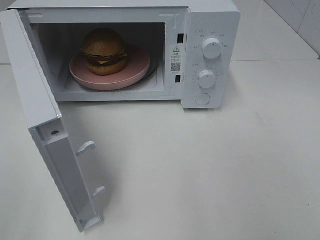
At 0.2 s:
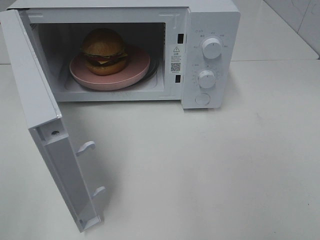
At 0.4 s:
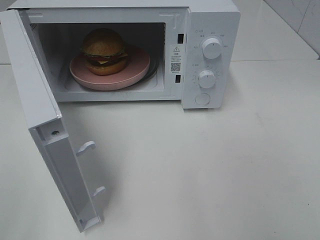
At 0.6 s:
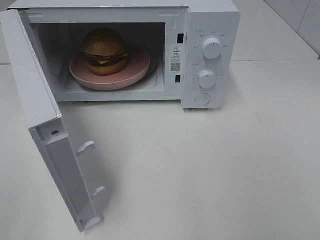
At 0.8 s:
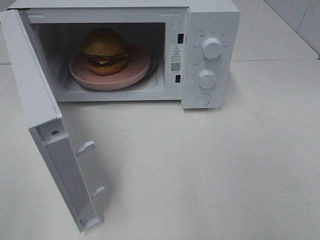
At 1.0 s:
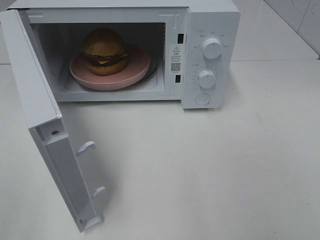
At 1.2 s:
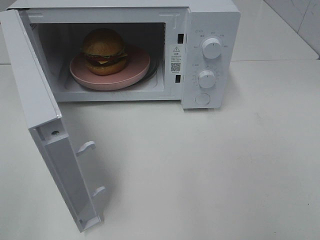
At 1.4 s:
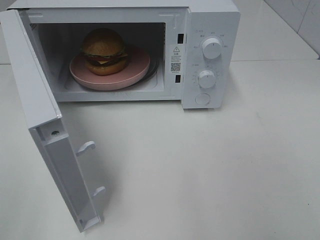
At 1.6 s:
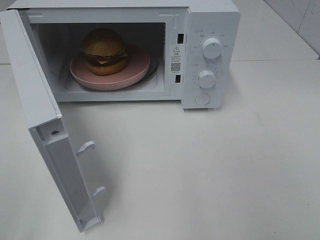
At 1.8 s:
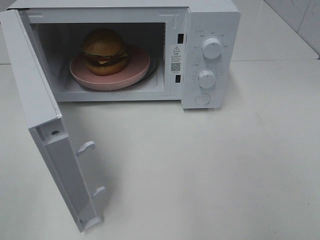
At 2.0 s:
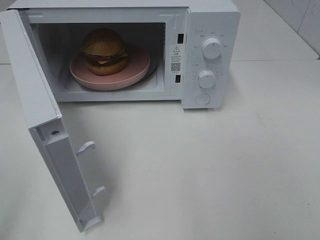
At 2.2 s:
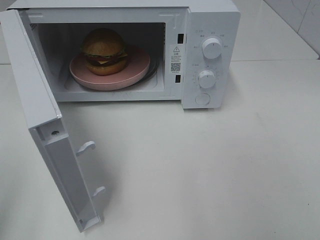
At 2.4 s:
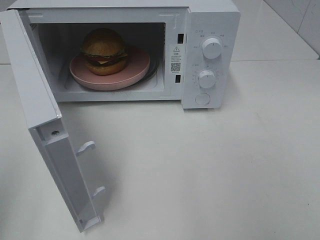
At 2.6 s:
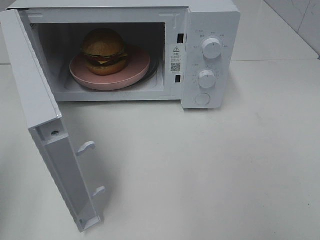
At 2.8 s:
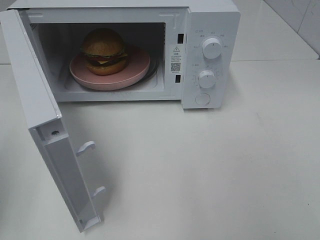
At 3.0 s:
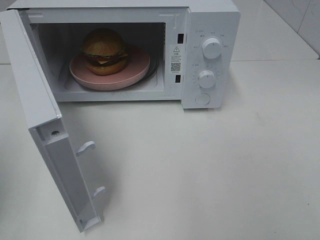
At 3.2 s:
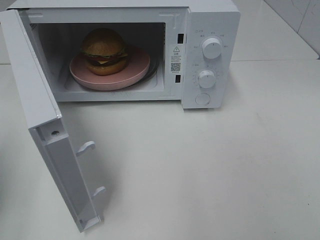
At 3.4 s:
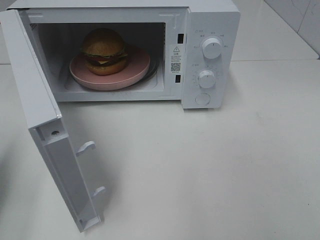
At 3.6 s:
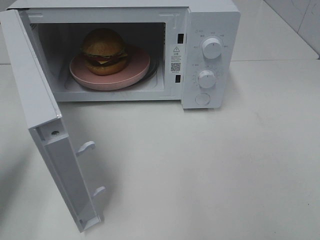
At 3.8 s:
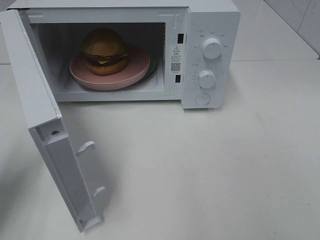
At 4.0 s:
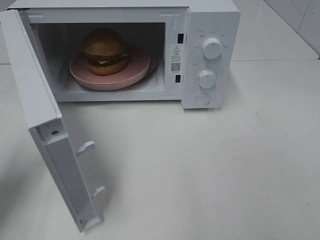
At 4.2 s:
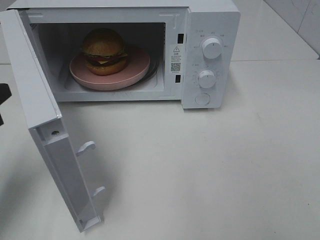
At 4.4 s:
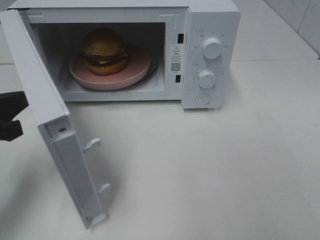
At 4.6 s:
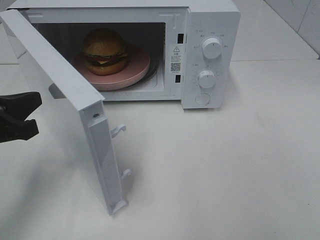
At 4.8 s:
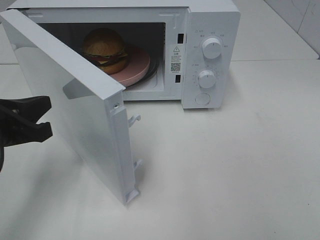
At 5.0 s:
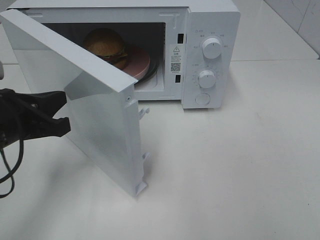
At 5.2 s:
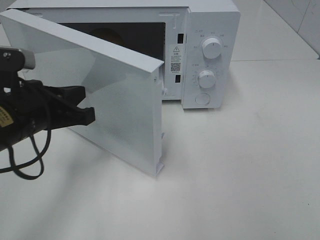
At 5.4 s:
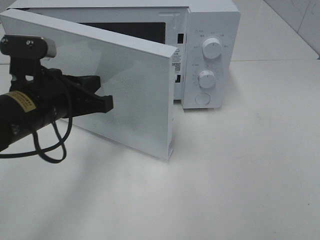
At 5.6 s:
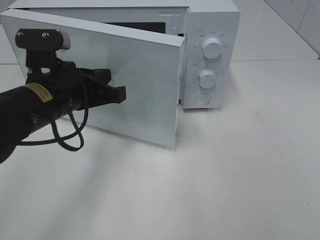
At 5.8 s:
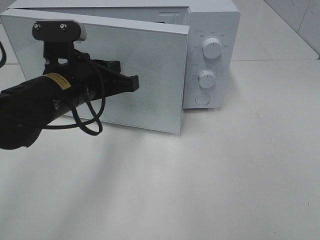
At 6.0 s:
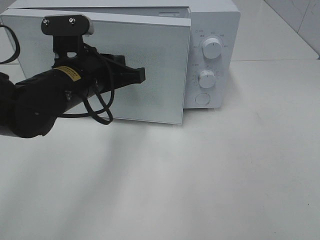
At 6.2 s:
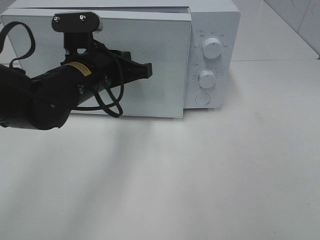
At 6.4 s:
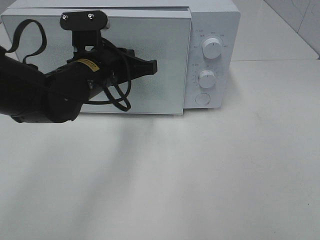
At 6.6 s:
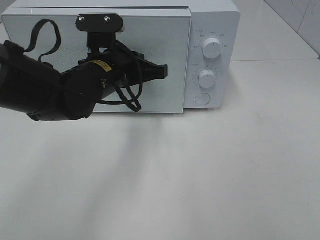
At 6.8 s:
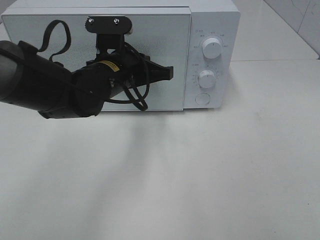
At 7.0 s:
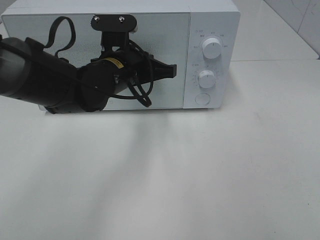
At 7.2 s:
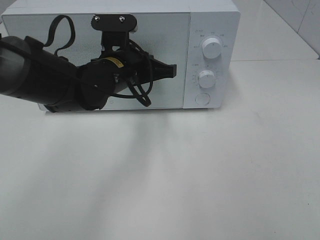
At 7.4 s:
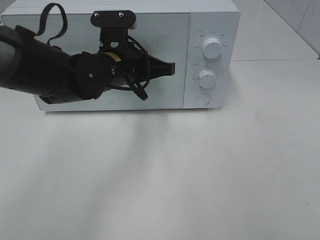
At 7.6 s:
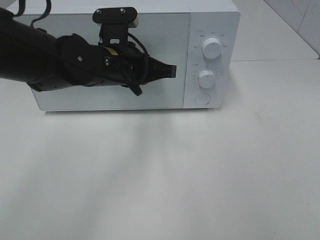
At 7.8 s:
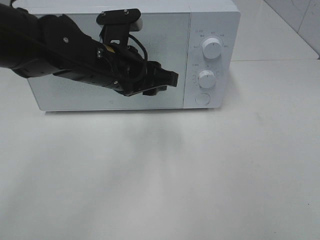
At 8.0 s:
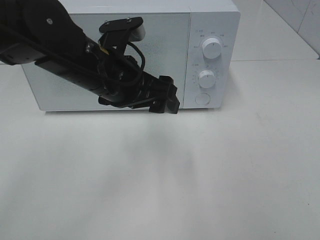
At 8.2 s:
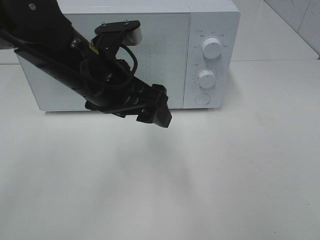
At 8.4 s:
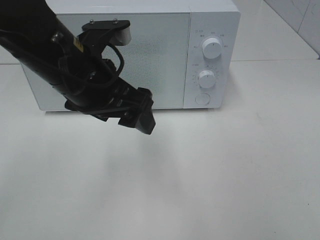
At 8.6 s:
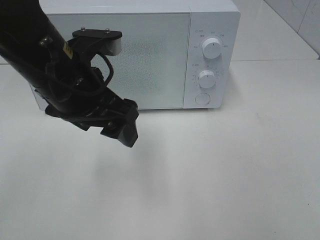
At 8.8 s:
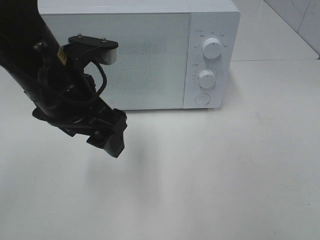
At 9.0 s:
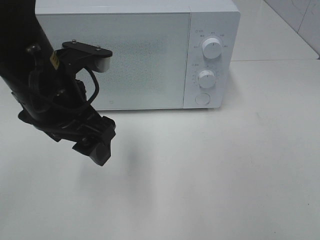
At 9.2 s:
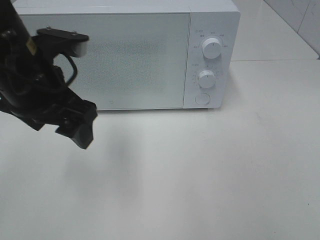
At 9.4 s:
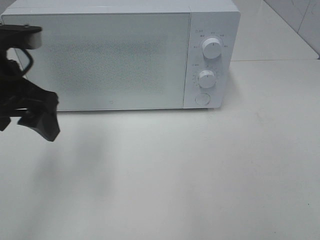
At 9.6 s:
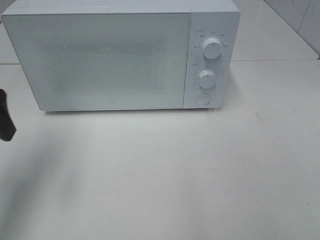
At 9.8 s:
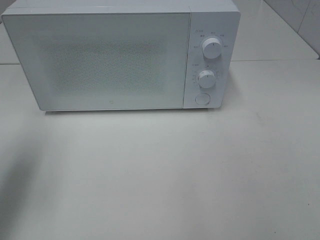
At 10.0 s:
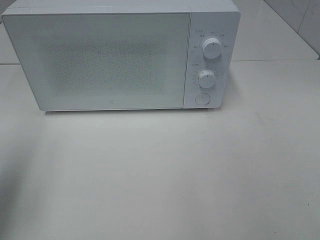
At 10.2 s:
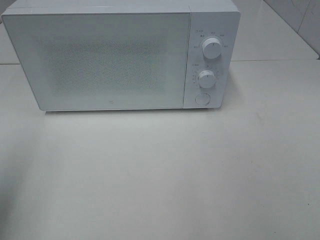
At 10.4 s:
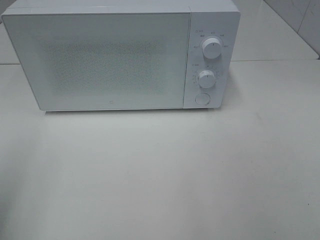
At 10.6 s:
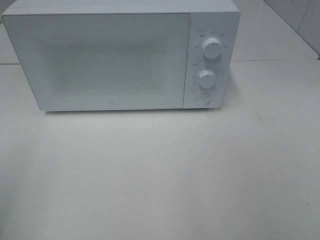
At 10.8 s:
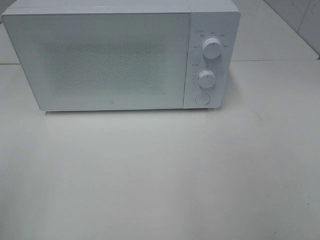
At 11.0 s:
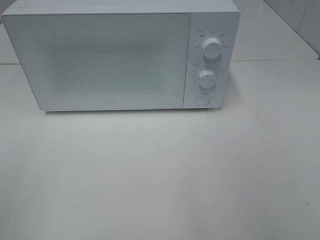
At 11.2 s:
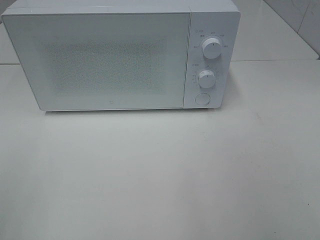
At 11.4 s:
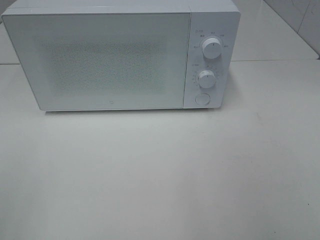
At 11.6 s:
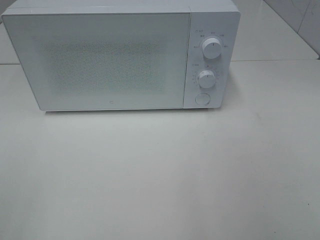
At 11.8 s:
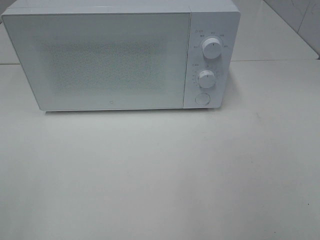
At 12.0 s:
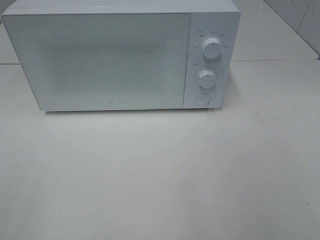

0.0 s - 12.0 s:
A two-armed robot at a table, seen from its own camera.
Task of the whole recording: Heat the burger.
Step, 0.0 s - 7.4 s: Left hand: close the microwave door.
3.0 s - 4.4 s: The left gripper heads to the right and downward, covering roughly 10 cm.
4.4 s - 6.0 s: The left gripper heads to the right and forward, covering some 20 cm.
6.0 s - 7.6 s: The left gripper changes place by approximately 5 cm.
7.6 s - 9.0 s: The left gripper goes approximately 10 cm backward and to the left, and opens.
9.0 s - 10.4 s: The left gripper goes approximately 25 cm to the left and backward.

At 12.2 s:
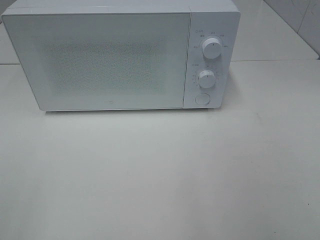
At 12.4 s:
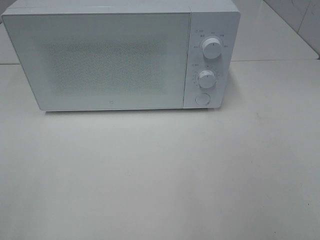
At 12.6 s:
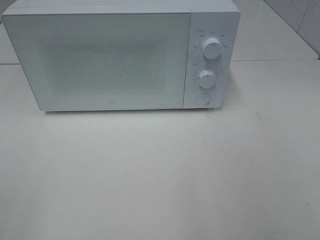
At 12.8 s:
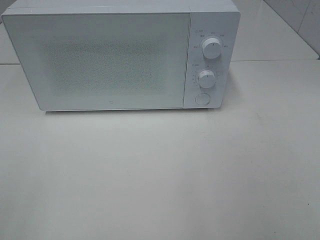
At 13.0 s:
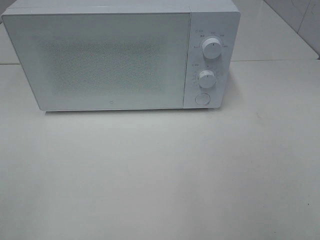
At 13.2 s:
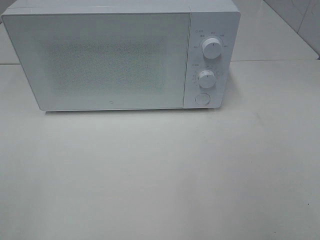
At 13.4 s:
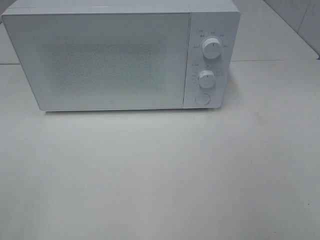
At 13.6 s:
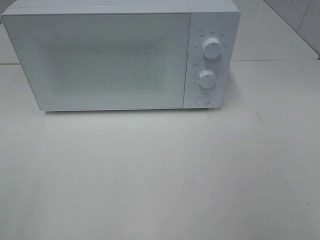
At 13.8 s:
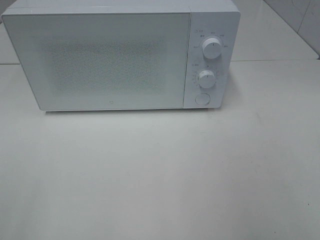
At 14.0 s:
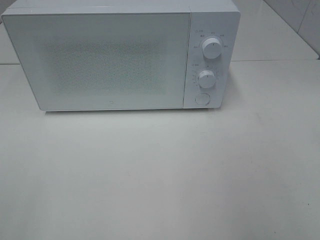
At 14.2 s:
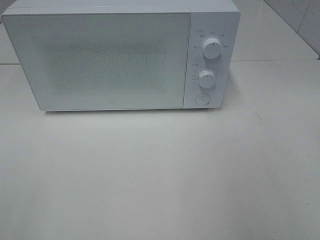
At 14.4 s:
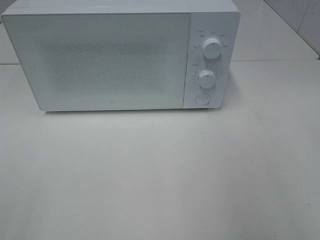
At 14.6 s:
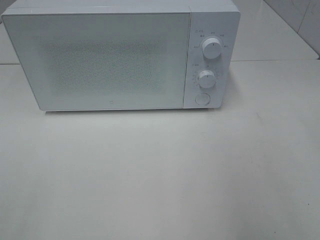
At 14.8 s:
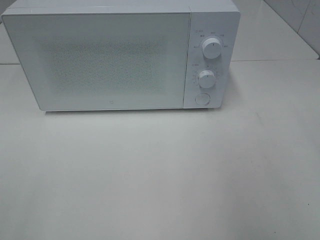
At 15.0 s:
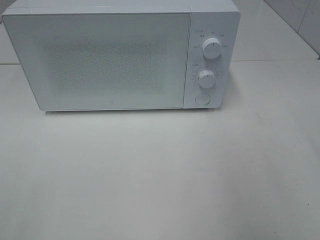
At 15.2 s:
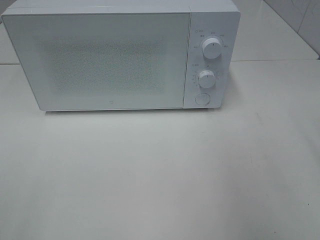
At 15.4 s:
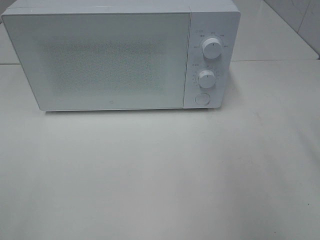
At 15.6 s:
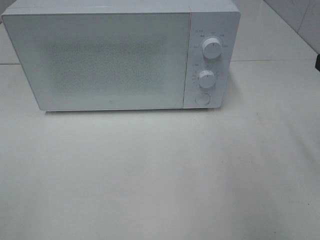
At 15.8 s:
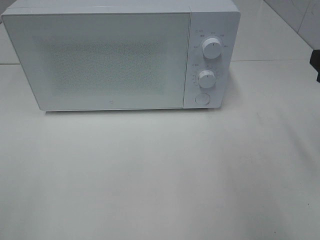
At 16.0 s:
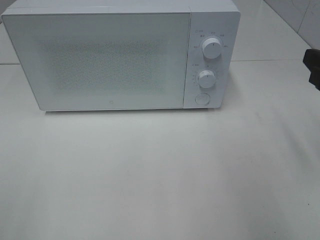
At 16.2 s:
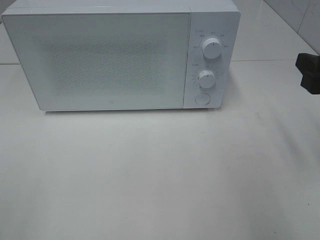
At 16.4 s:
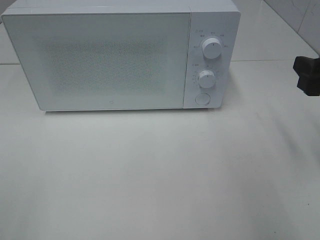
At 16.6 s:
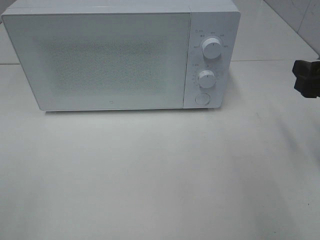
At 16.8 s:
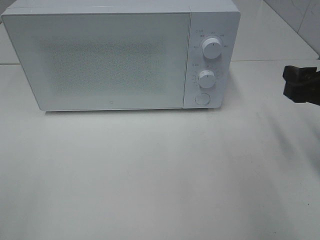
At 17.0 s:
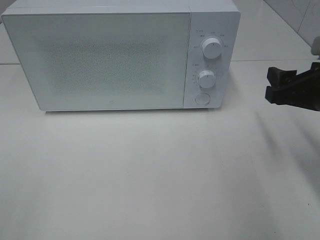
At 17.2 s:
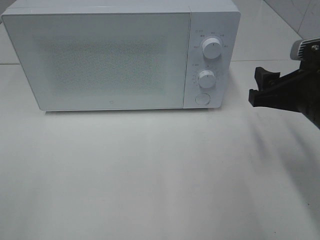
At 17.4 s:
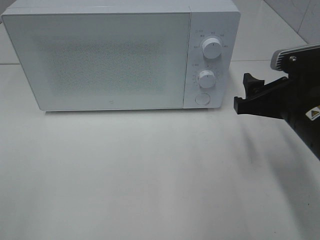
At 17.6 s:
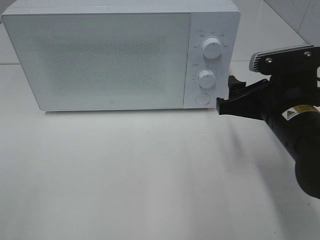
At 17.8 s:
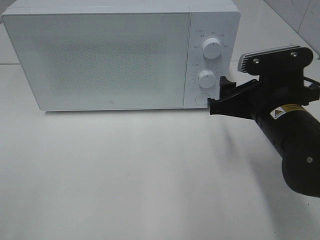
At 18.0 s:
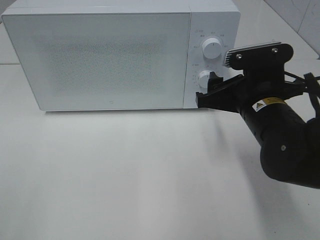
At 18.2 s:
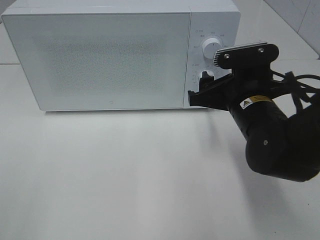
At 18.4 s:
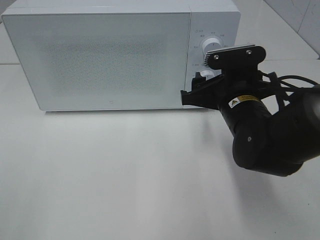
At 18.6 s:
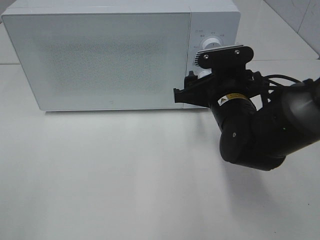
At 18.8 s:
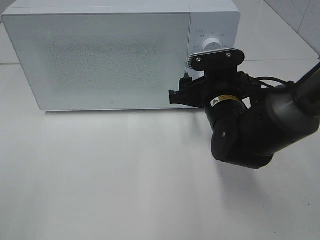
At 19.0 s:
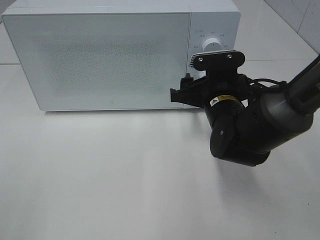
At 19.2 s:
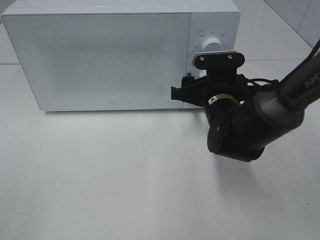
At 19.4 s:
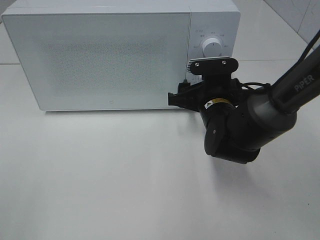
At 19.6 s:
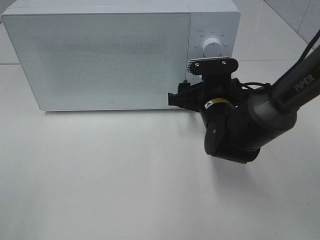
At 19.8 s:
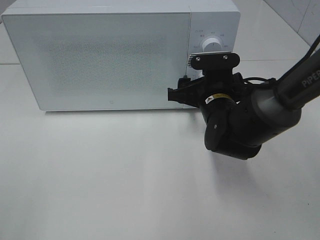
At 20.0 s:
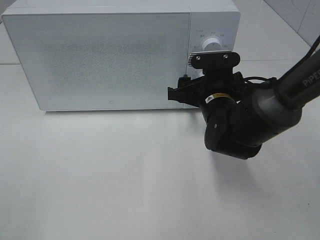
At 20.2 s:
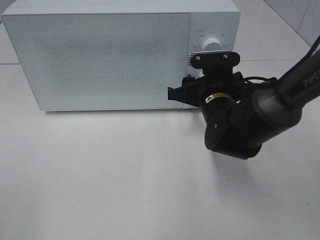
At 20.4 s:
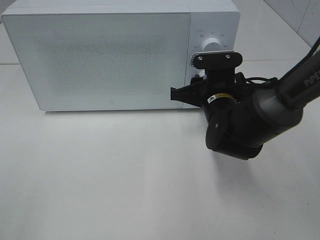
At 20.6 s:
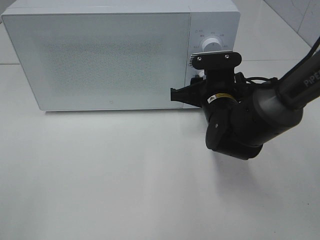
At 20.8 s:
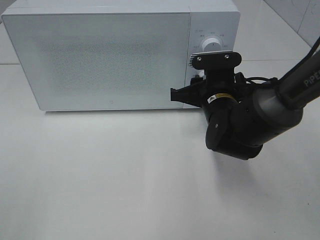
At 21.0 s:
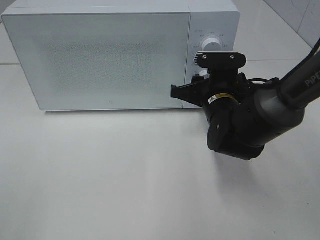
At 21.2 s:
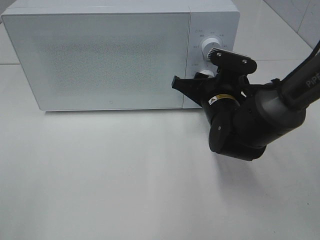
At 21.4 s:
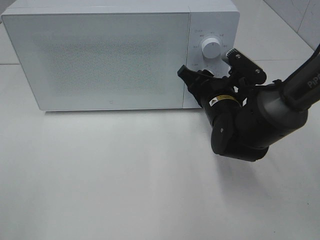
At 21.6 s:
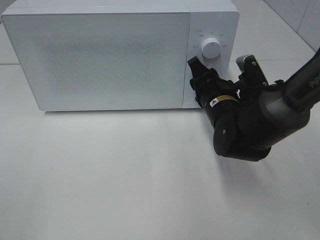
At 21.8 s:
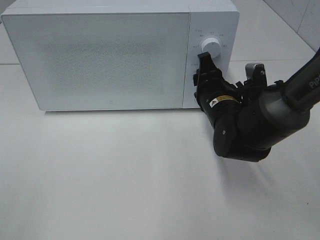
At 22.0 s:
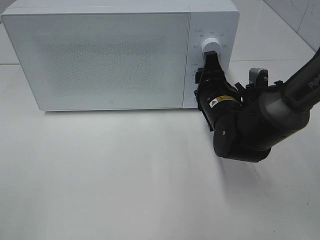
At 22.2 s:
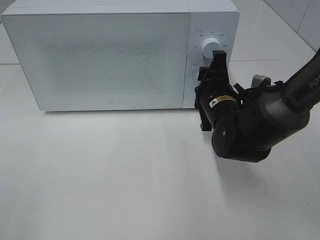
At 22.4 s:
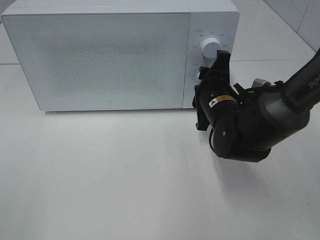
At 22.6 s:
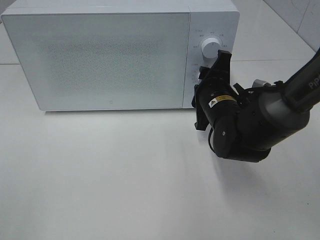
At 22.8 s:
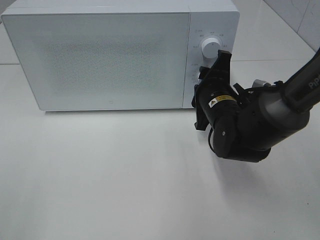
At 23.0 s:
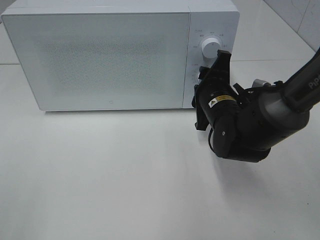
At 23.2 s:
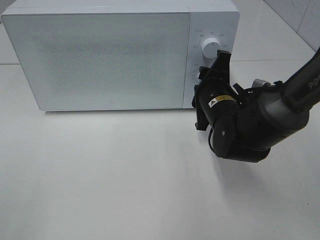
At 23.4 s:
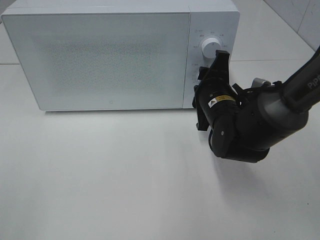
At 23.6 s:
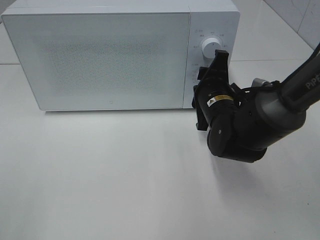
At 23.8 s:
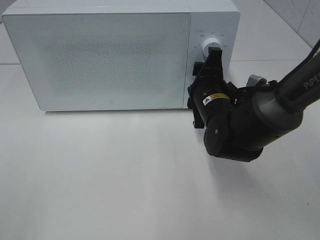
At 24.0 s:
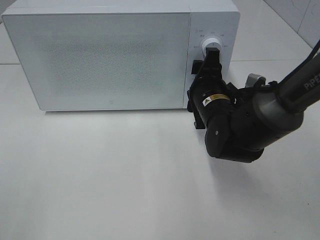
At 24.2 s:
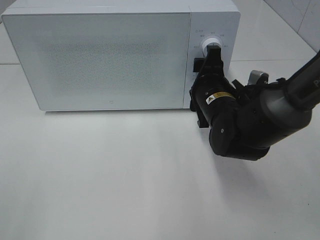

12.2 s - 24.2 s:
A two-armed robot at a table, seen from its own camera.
Task of the whole recording: Heat the burger.
Step, 12.2 s - 24.0 s: Right hand: twist timer button.
15.2 s - 16.6 s: The right gripper travels downward by roughly 10 cm.
16.6 s - 18.2 s: The right gripper is displaced to the left by some 15 cm.
18.2 s - 19.8 s: The right gripper is displaced forward by about 5 cm.
19.8 s - 21.2 s: The right gripper closes its fingers.
22.6 s - 24.2 s: There are only small adjustments of the grippers.
